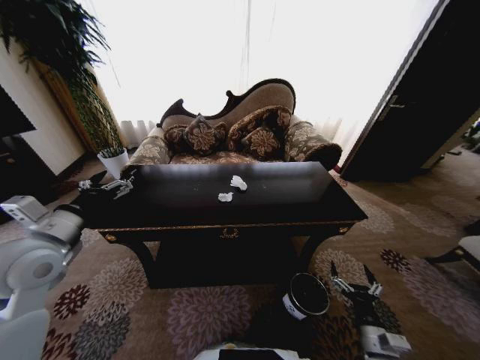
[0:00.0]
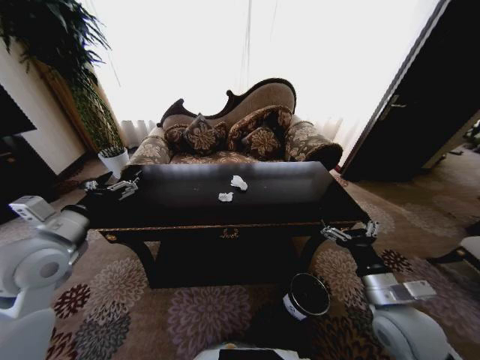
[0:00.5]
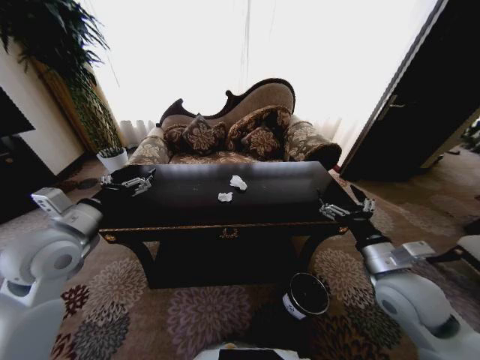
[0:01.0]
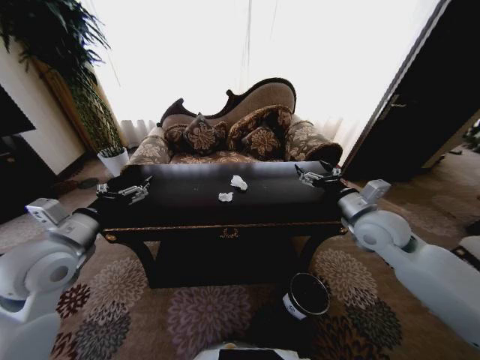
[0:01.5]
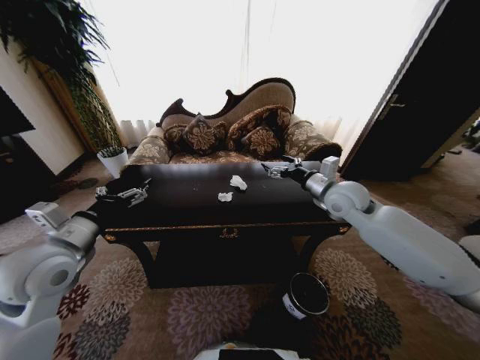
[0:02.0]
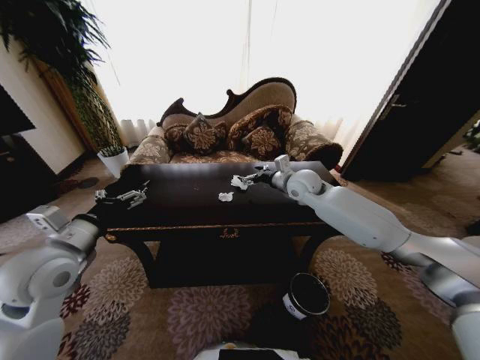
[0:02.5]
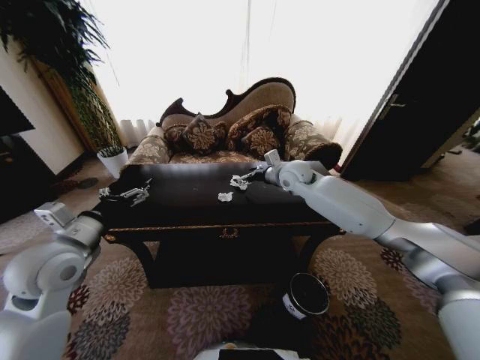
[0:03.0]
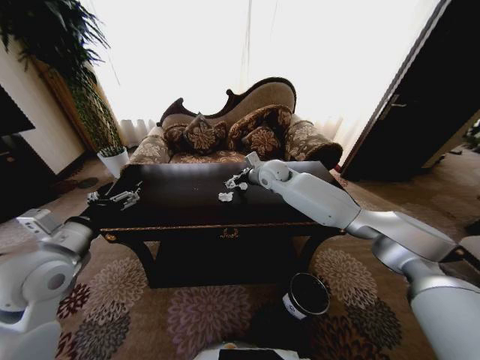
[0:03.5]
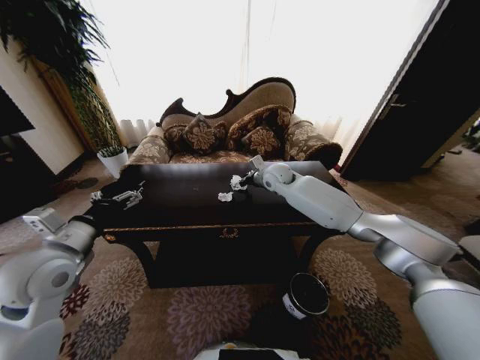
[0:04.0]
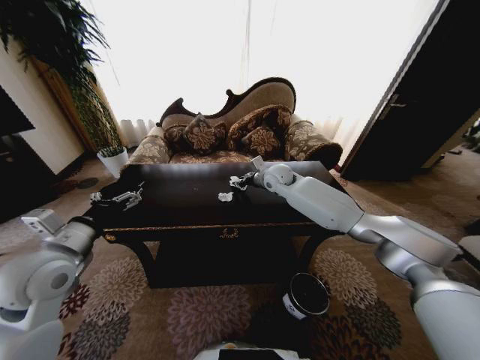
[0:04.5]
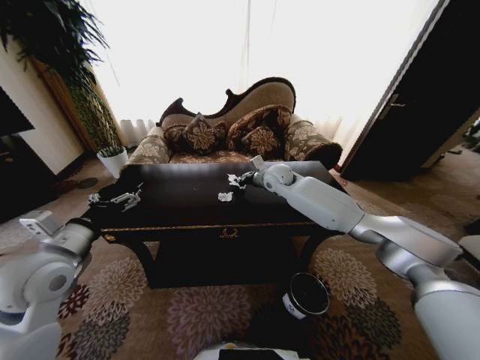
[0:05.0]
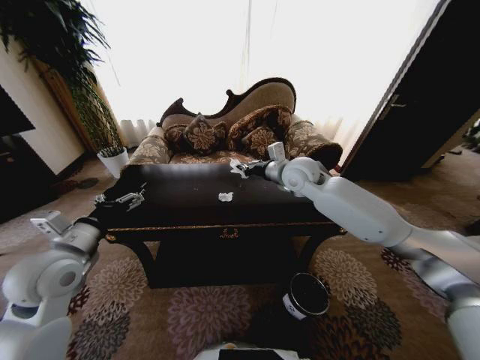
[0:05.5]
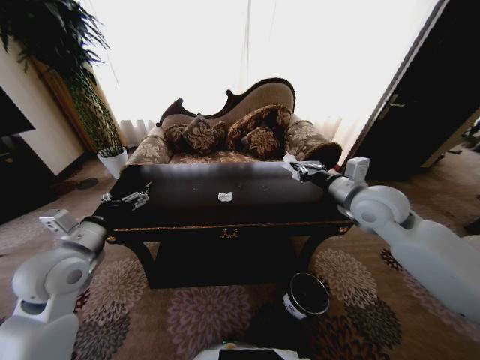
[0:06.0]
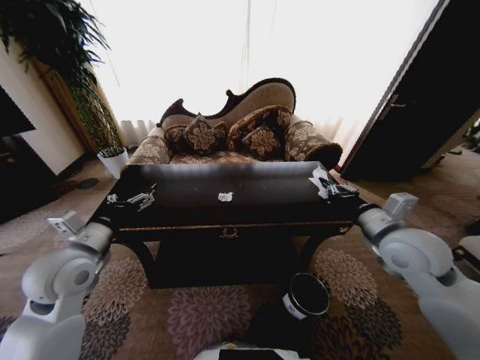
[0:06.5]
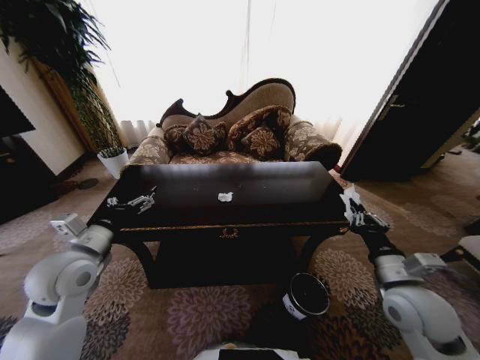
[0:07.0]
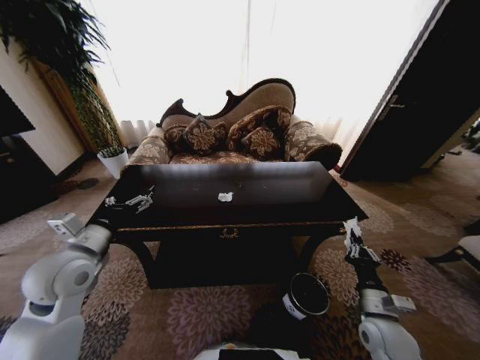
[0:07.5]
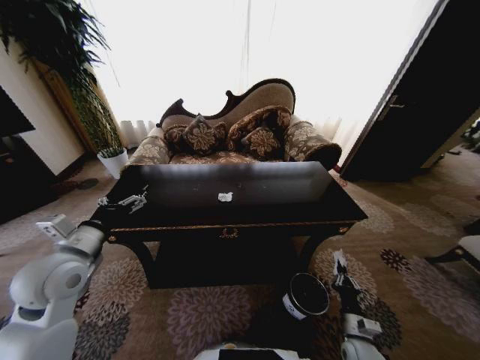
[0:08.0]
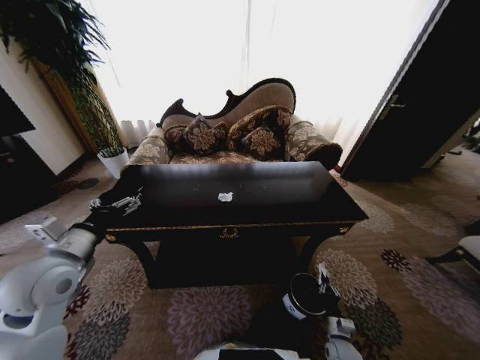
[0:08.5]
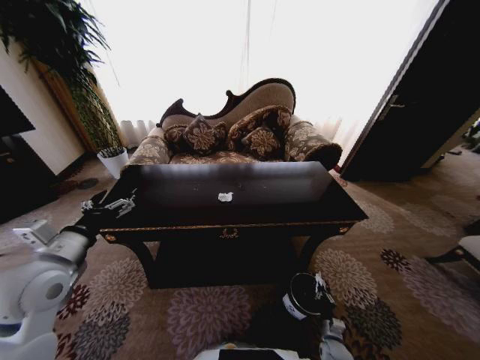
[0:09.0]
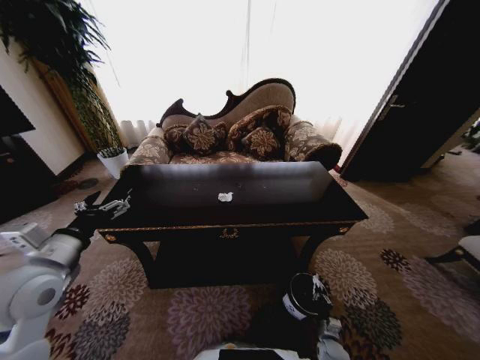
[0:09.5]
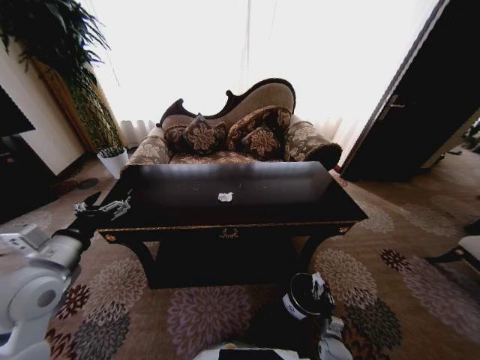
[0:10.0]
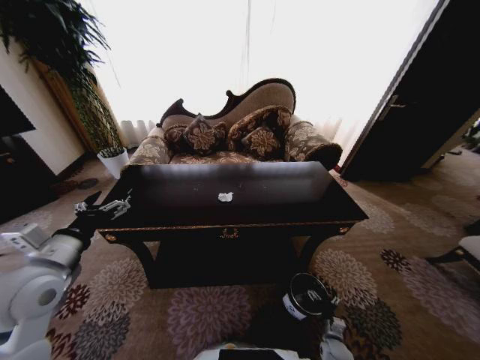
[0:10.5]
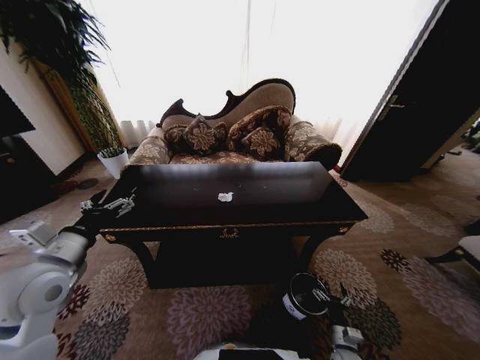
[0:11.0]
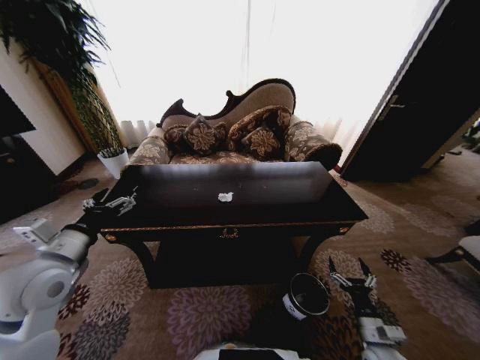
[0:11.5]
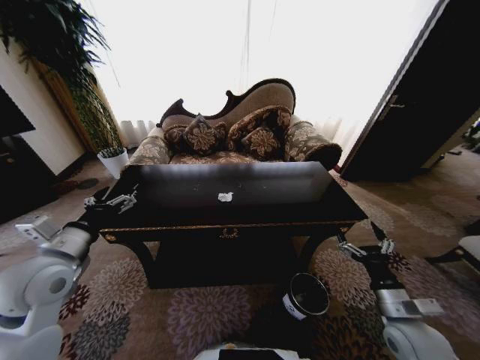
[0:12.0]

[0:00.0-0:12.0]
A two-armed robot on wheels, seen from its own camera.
Task of the whole recording: Move to the front of the table and place the trash on the table into the trash bin.
0:00.0 to 0:02.0: The right gripper moves forward and upward, about 40 cm.
0:02.0 to 0:04.0: The right gripper is displaced forward and to the left by about 20 cm.
0:04.0 to 0:06.0: The right gripper heads backward and to the right, covering approximately 25 cm, and closes up.
0:06.0 to 0:08.0: The right gripper goes some 50 cm downward and backward.
0:08.0 to 0:10.0: The right gripper heads downward, covering approximately 15 cm, and opens.
0:10.0 to 0:12.0: The right gripper heads upward, covering about 35 cm, and opens its fingers.

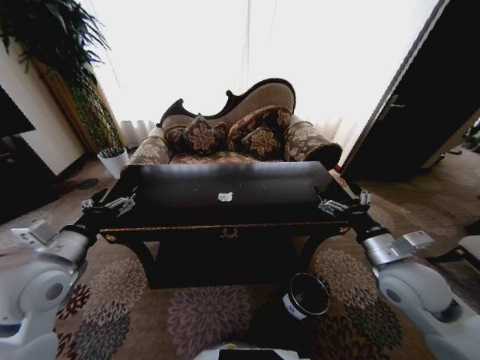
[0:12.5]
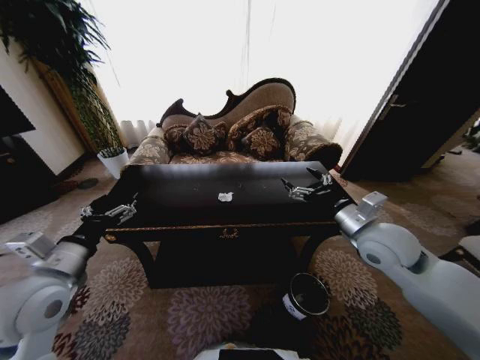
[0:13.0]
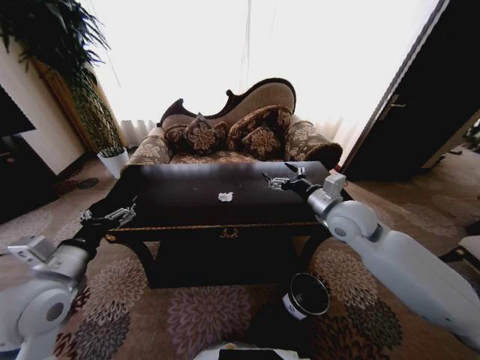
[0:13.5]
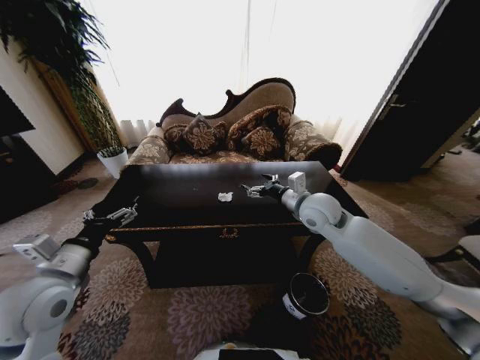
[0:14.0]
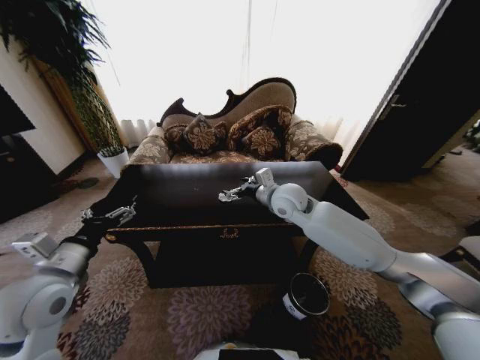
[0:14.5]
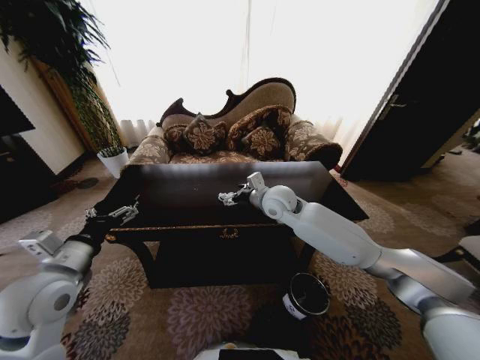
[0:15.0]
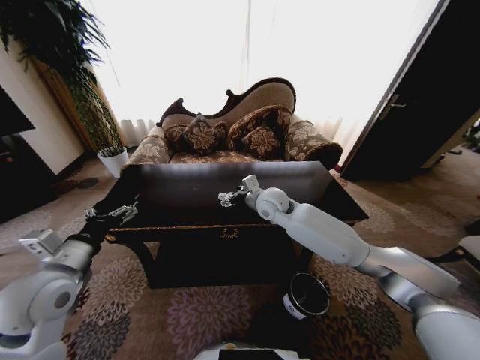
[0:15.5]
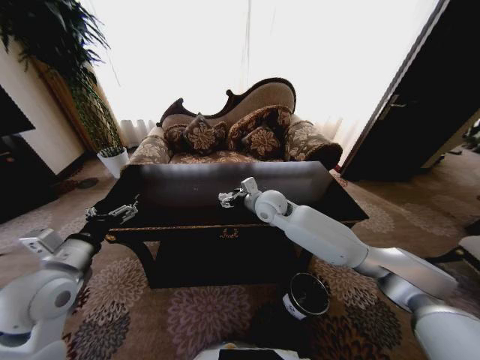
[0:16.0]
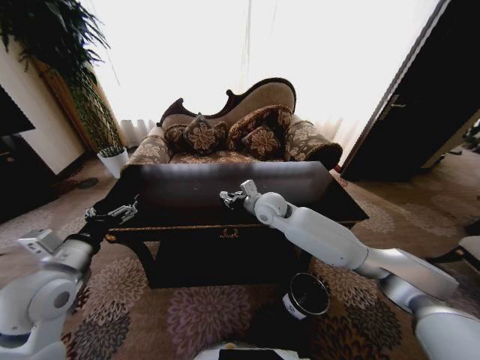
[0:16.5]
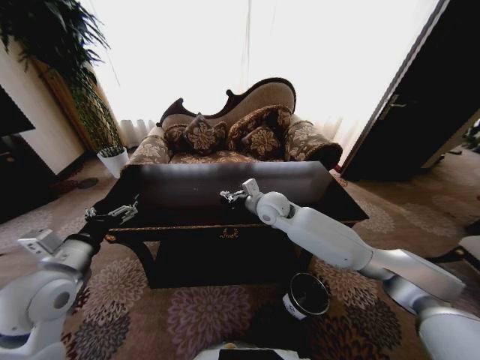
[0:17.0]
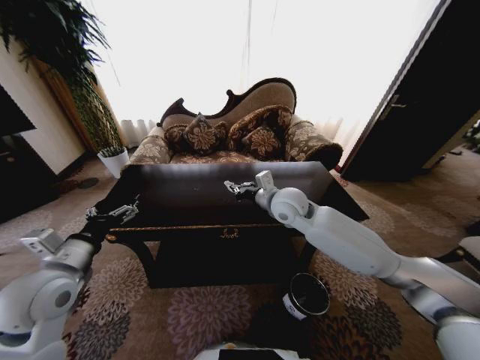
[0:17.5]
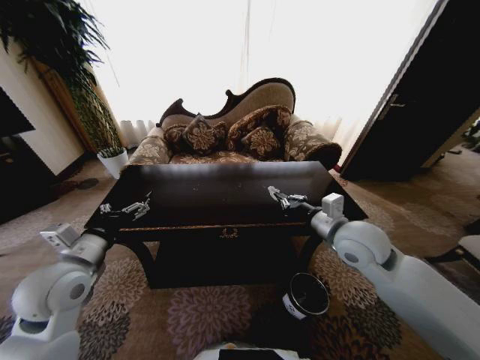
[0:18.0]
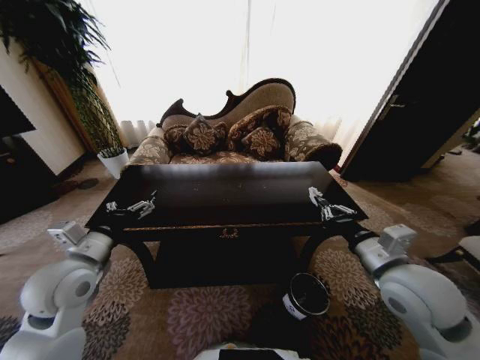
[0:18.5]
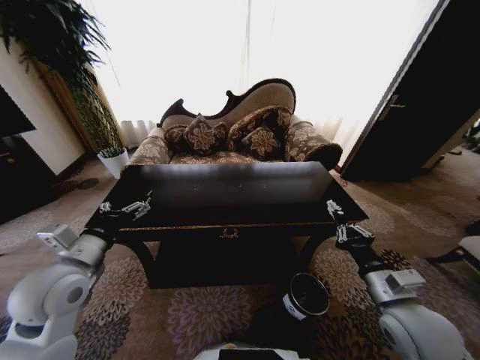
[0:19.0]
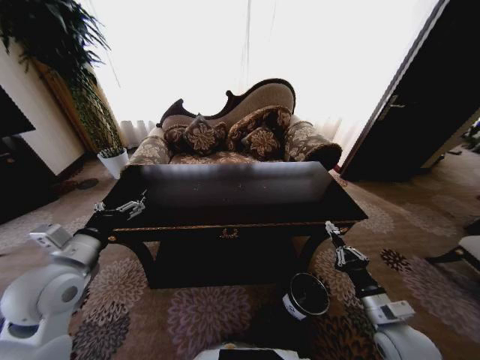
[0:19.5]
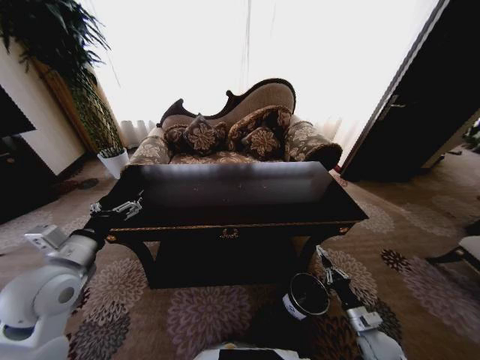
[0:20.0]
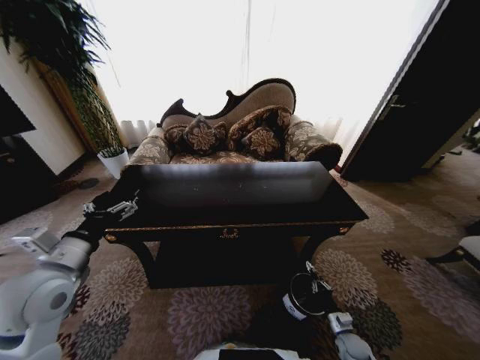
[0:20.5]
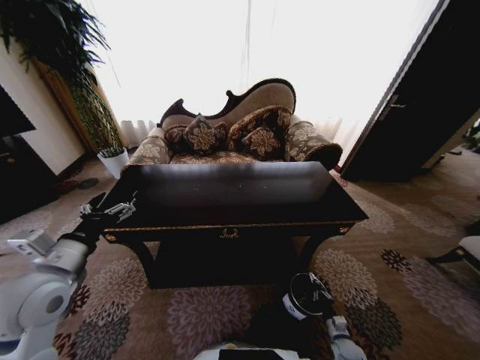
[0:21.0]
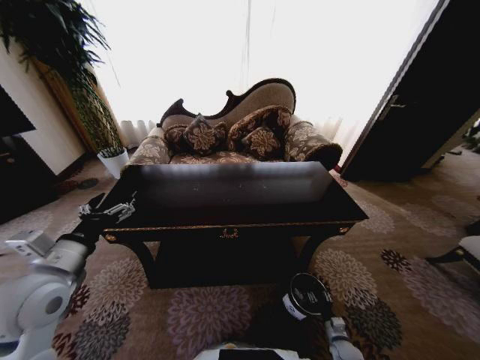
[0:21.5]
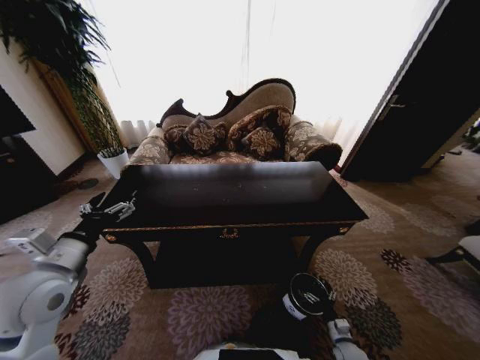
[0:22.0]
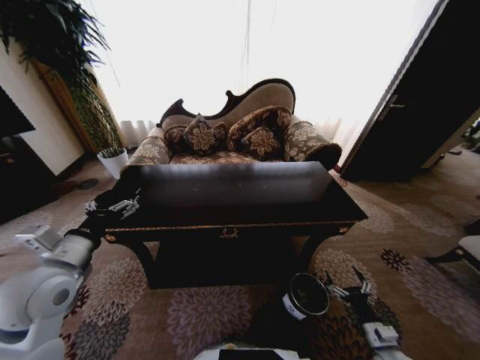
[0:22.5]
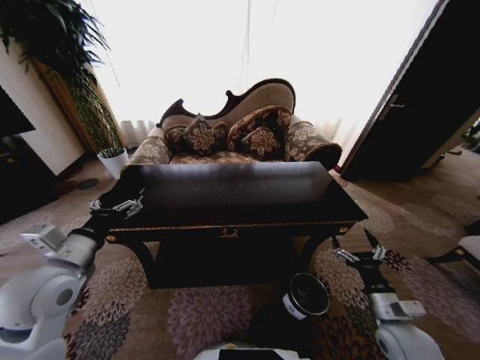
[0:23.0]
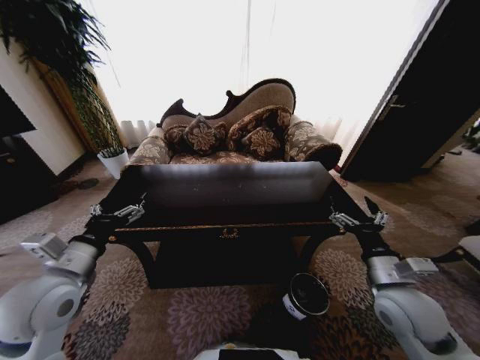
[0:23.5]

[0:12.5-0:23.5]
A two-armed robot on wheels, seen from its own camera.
Task of the whole recording: Move to the front of the table and place the trash on the table into the trash bin.
0:12.5 to 0:14.5: The right gripper goes about 30 cm forward and to the left.
0:14.5 to 0:16.0: The right gripper ends up about 5 cm from where it was.
0:16.0 to 0:18.0: The right gripper travels to the right and backward by roughly 20 cm, and closes.
0:18.0 to 0:20.0: The right gripper heads downward, to the right and backward, covering about 40 cm.
0:20.0 to 0:21.5: The right gripper moves downward, roughly 15 cm, and opens.
0:21.5 to 0:23.5: The right gripper travels upward by about 40 cm, and opens up.

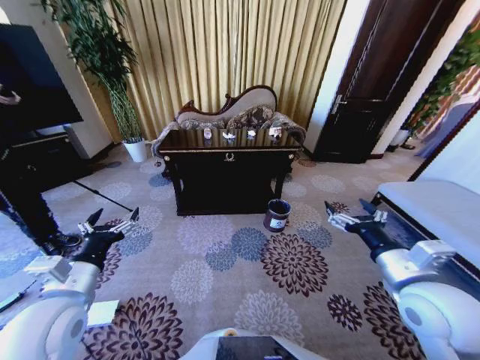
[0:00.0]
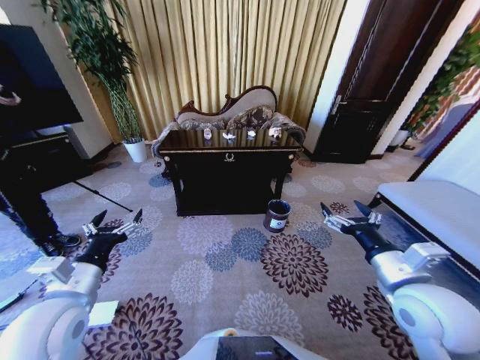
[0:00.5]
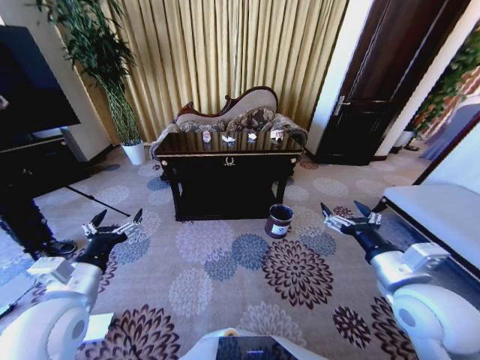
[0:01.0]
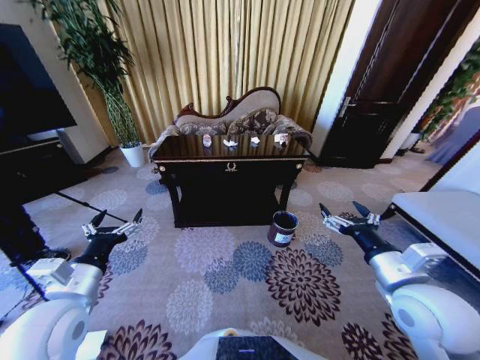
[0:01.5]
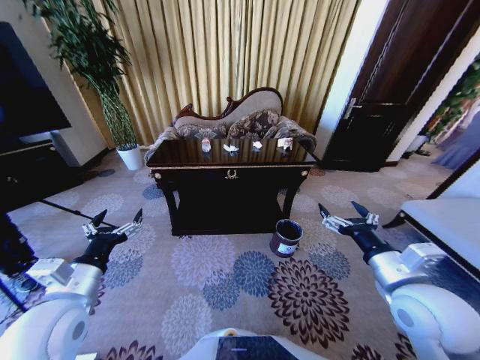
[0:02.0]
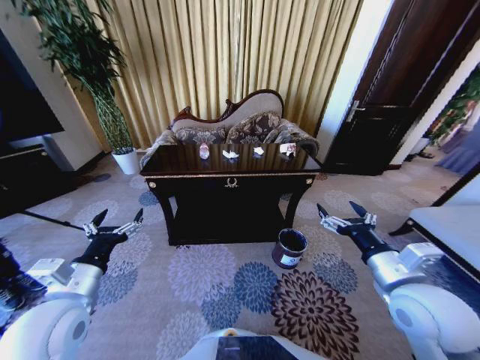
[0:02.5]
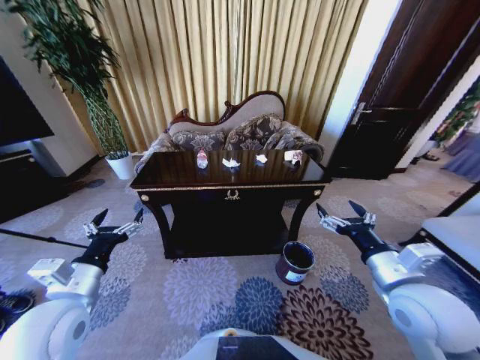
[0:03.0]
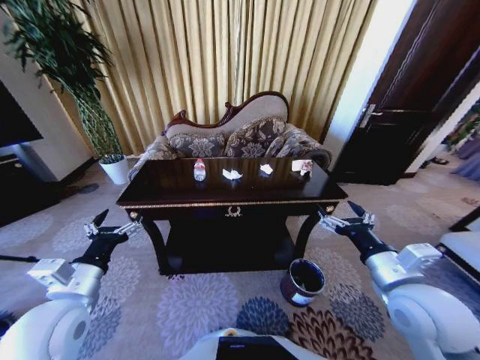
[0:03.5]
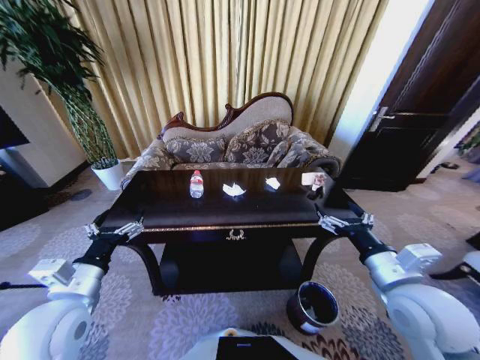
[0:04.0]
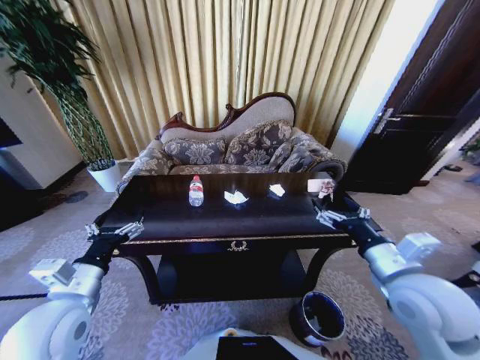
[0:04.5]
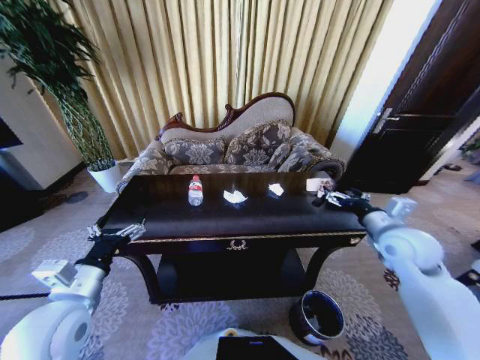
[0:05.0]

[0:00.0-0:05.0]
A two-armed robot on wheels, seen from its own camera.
Task of the whole recording: Move to the front of the table and place the trash on the table into the trash bin.
0:02.5 to 0:05.0: The right gripper goes approximately 15 cm forward and to the right.
